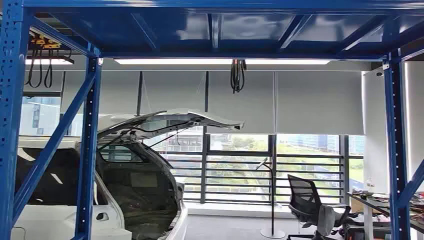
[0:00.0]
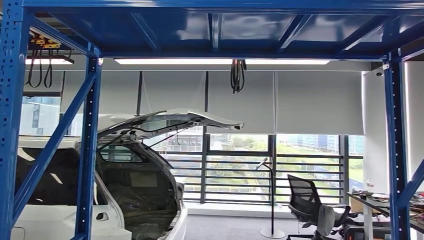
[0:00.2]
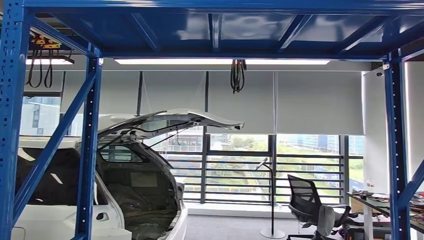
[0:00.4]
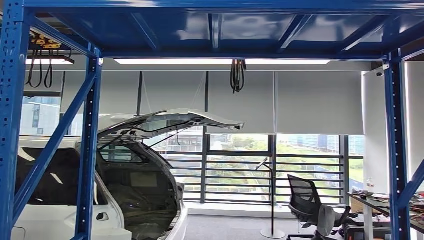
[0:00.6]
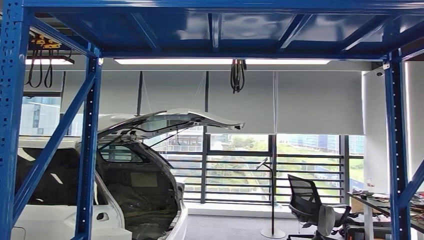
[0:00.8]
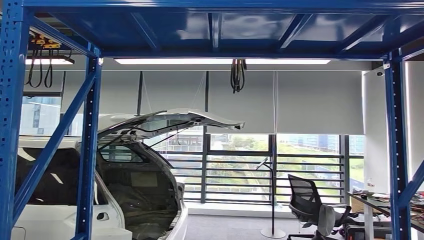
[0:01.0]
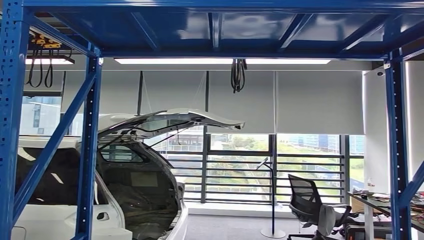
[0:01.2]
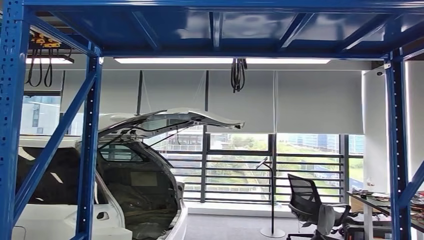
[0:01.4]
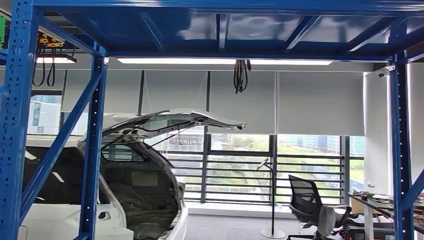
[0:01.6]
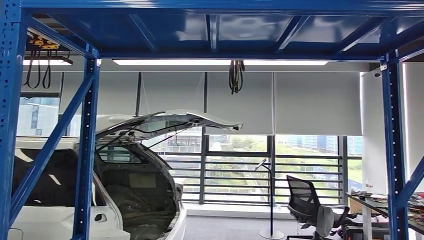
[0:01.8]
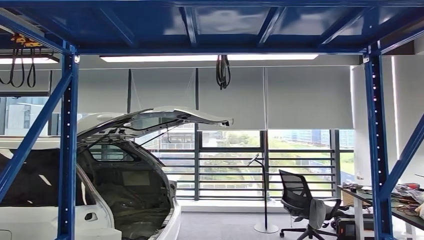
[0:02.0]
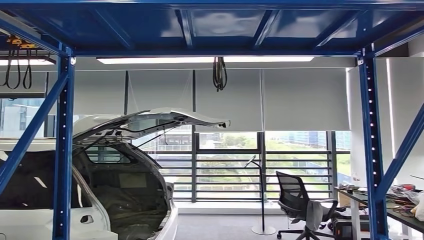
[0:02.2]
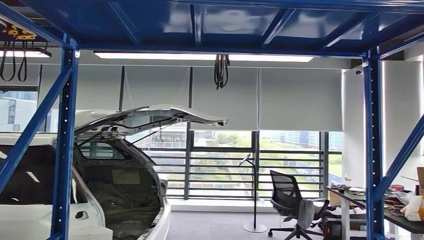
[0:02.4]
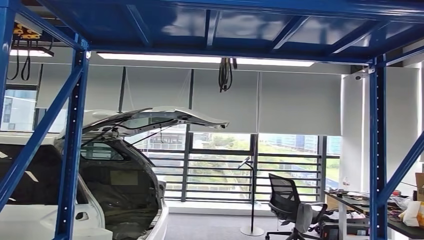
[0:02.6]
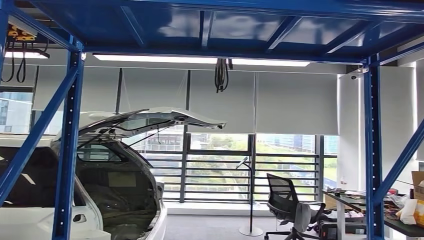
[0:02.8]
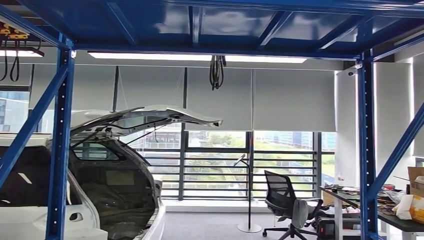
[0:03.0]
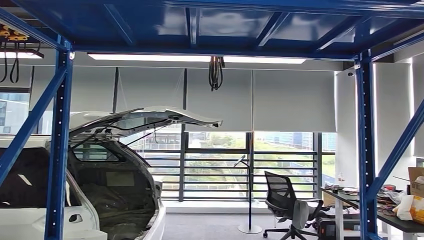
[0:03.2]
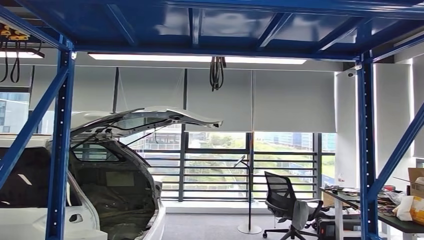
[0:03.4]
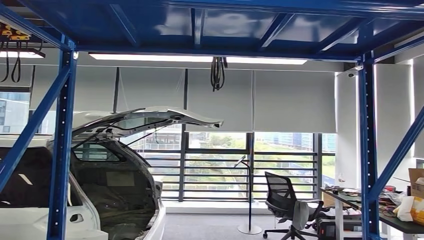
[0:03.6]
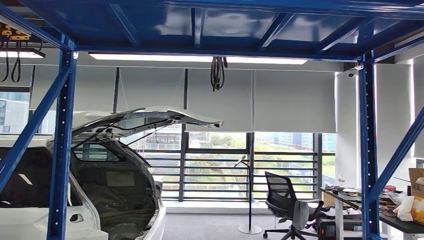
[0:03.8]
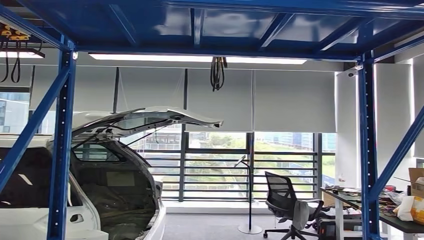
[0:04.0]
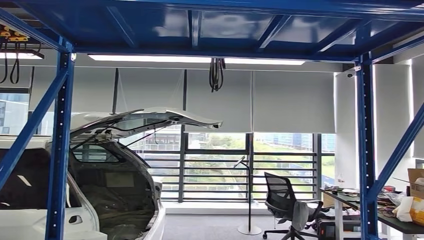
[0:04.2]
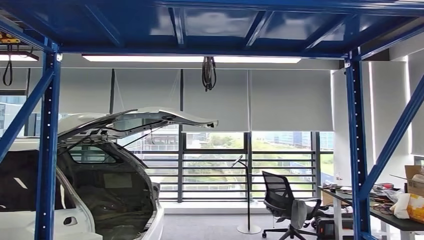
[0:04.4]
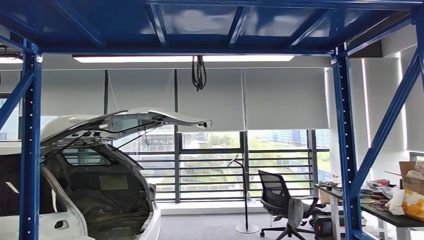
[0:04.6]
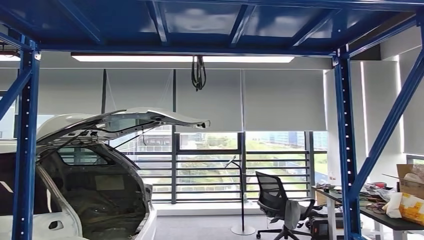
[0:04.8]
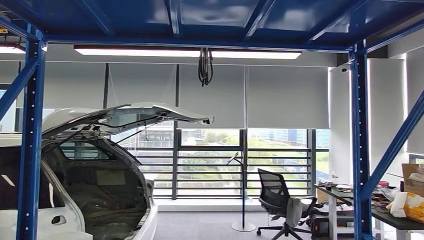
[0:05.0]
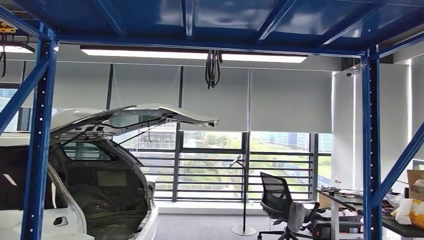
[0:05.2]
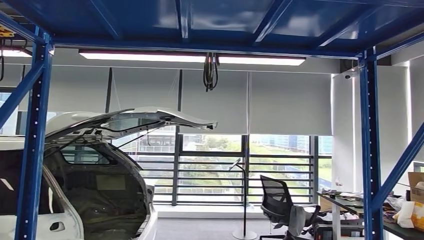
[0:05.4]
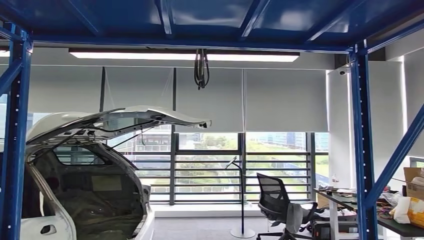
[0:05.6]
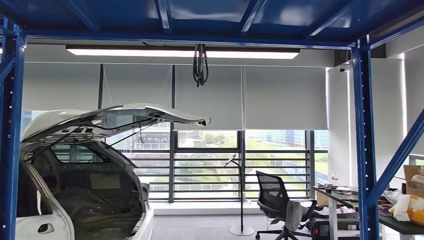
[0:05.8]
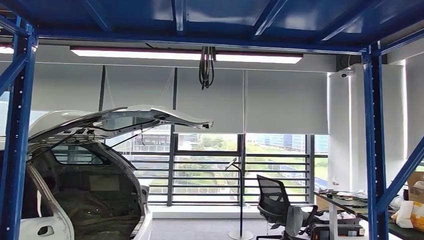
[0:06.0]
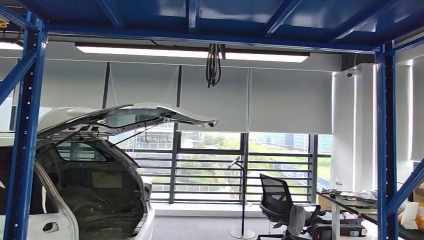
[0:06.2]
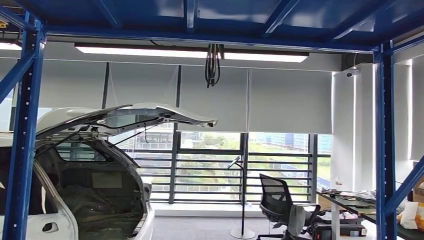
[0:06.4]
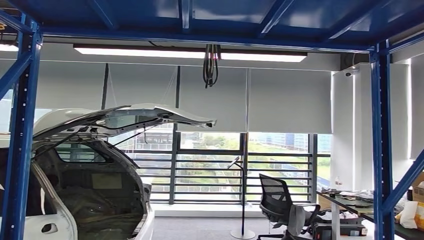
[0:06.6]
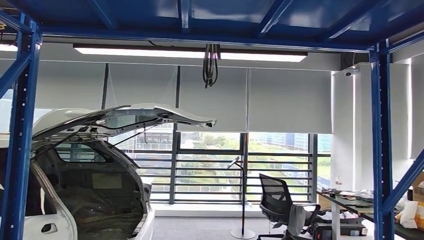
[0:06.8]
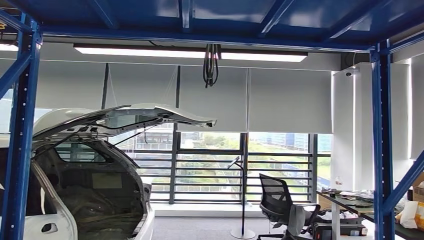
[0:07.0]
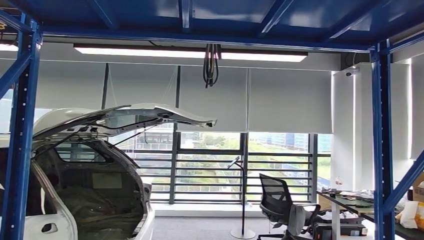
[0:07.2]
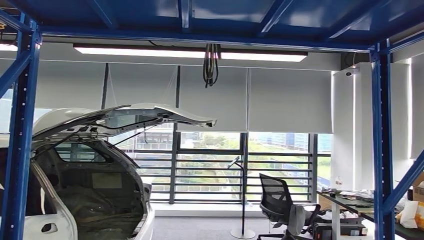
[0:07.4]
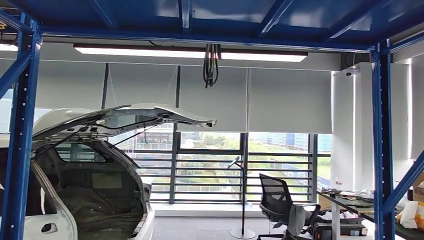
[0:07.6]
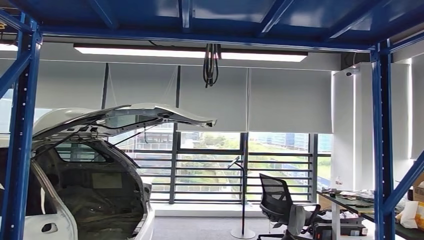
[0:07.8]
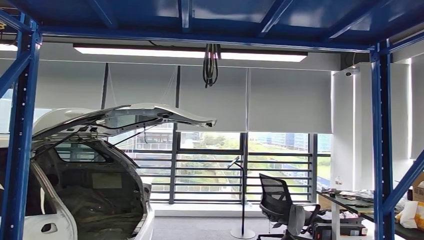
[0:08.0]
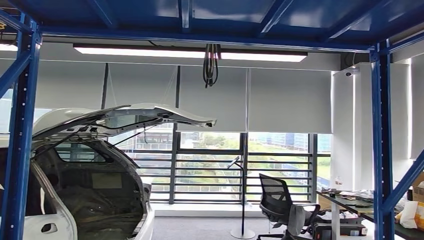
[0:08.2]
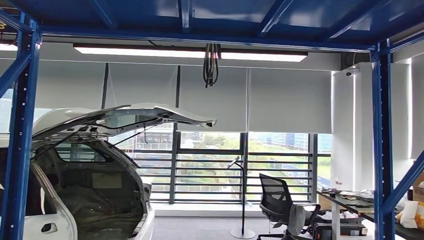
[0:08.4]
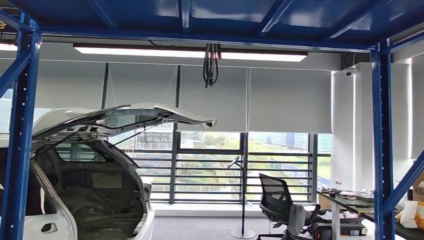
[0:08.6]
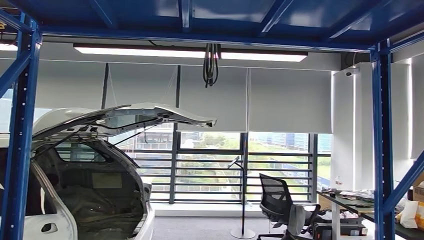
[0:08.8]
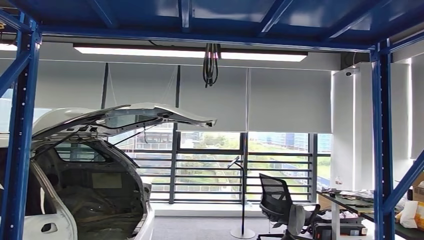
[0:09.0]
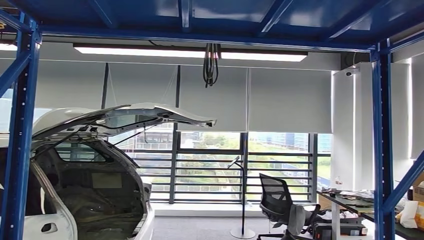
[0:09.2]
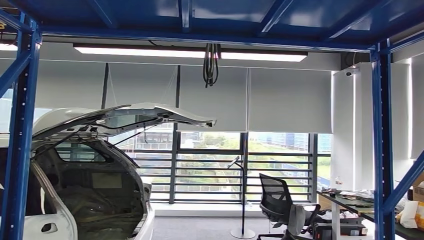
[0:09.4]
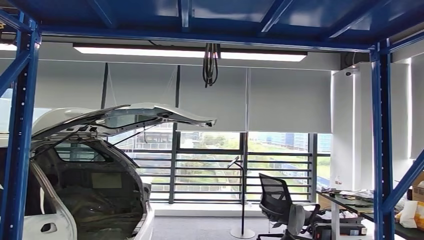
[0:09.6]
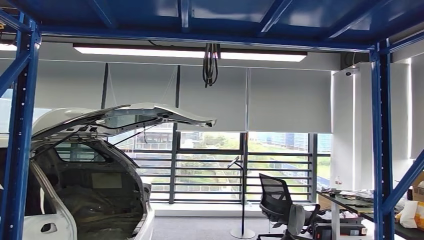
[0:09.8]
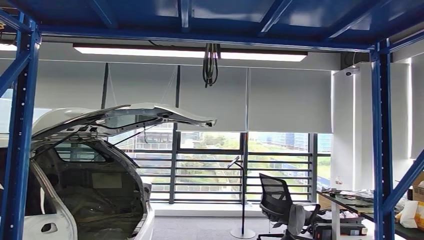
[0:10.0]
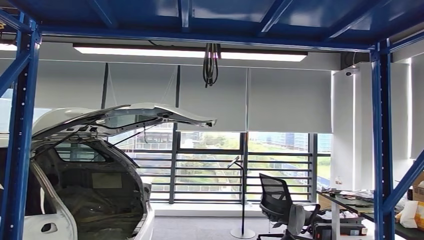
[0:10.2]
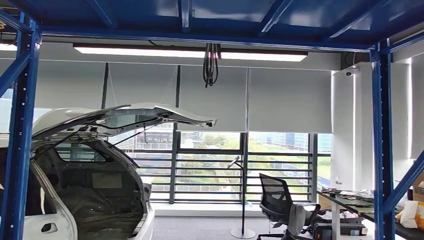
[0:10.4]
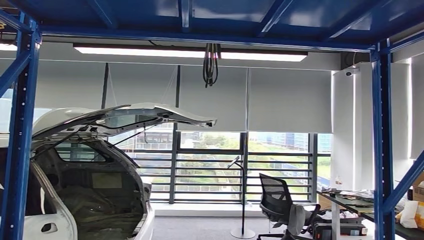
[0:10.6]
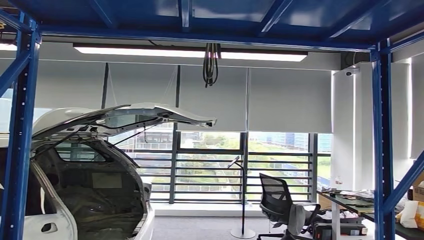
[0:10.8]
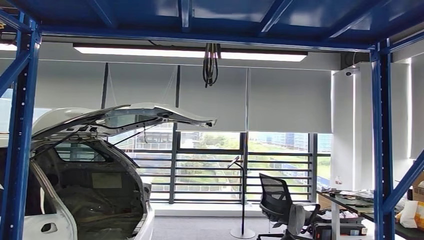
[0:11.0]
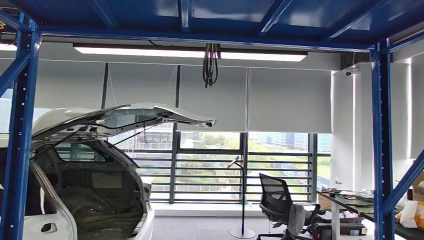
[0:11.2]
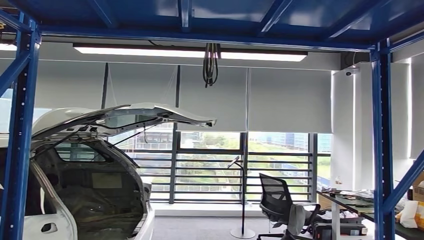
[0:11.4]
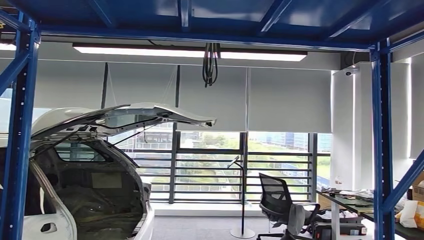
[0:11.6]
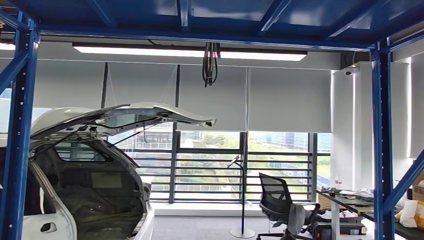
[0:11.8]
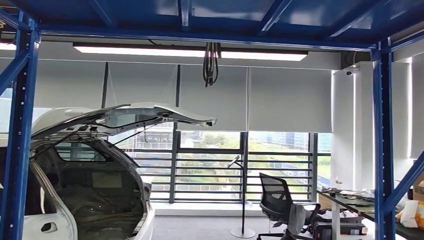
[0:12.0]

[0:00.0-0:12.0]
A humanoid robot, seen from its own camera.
Step, 0:00.0 to 0:11.0: Pick up the small component from the shelf.
0:10.4 to 0:12.0: The right hand heads upward, covering some 10 cm.

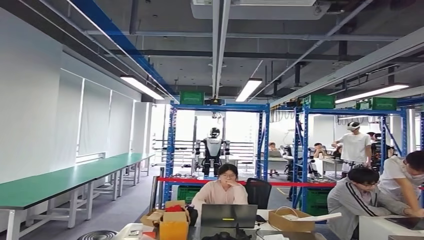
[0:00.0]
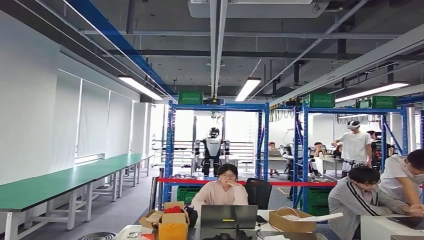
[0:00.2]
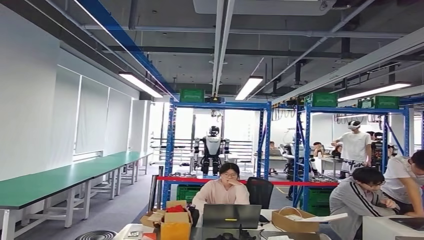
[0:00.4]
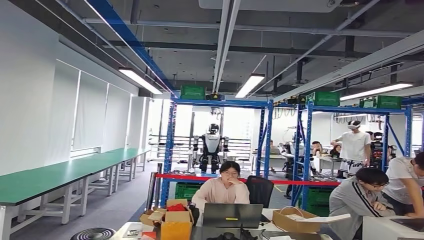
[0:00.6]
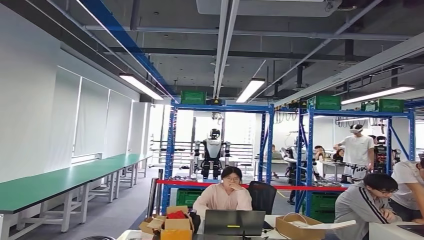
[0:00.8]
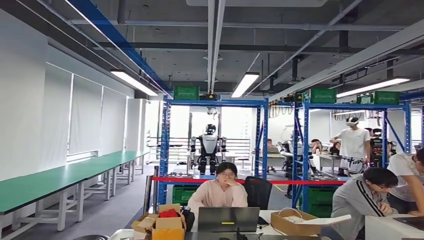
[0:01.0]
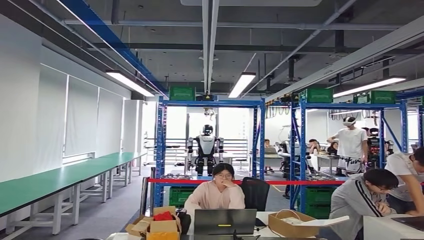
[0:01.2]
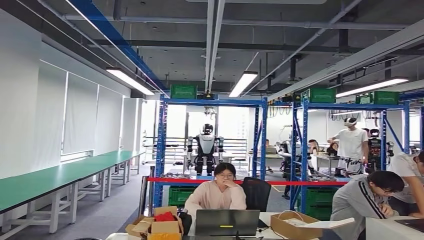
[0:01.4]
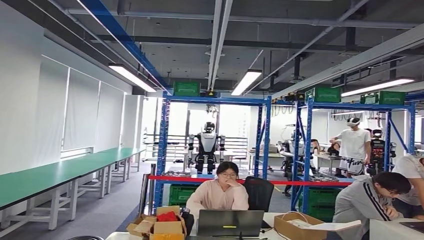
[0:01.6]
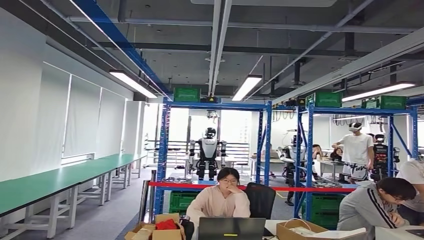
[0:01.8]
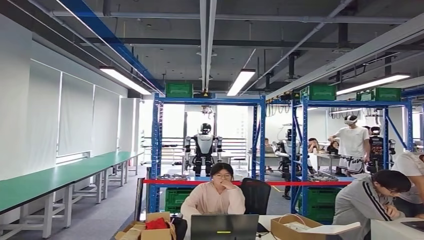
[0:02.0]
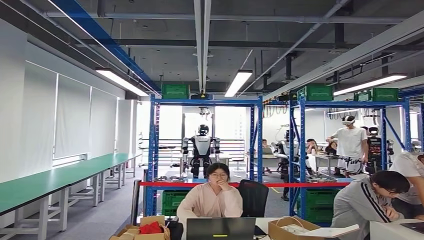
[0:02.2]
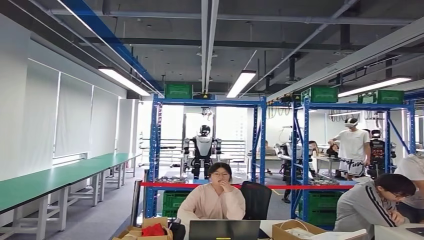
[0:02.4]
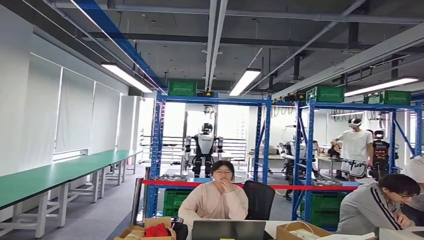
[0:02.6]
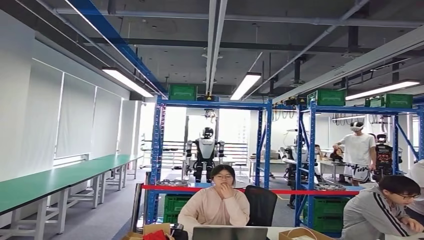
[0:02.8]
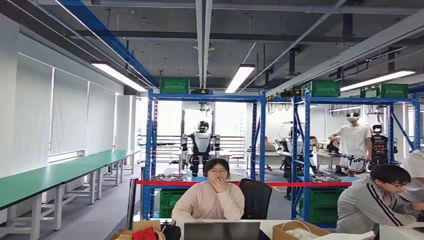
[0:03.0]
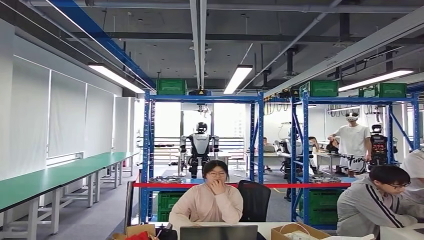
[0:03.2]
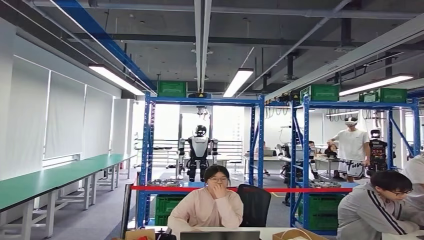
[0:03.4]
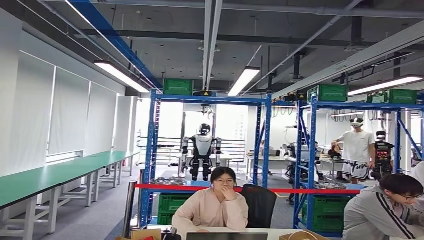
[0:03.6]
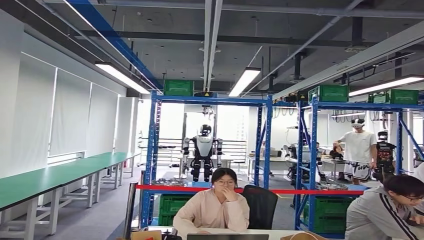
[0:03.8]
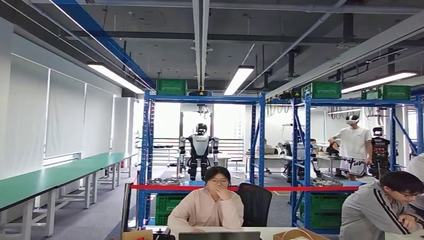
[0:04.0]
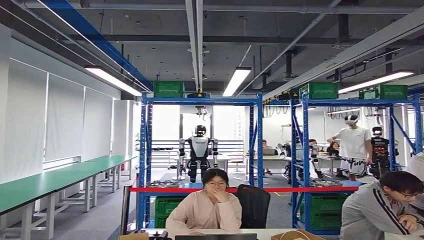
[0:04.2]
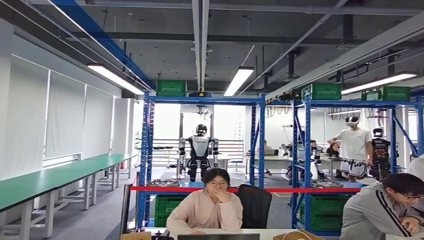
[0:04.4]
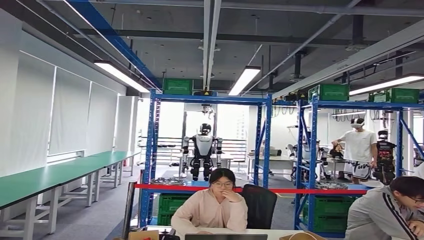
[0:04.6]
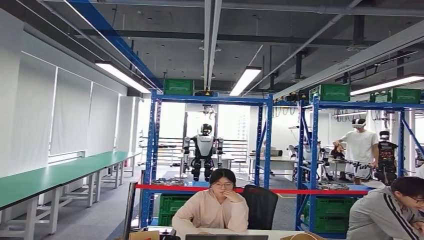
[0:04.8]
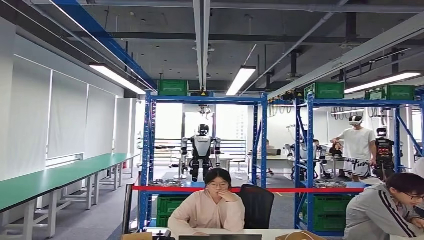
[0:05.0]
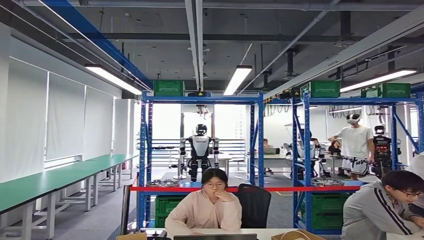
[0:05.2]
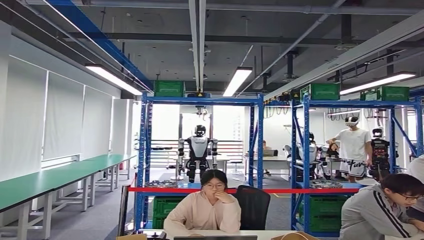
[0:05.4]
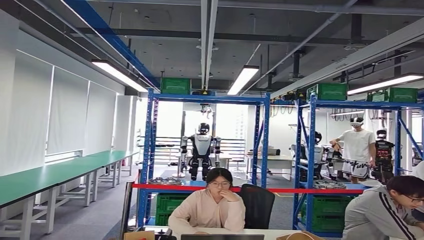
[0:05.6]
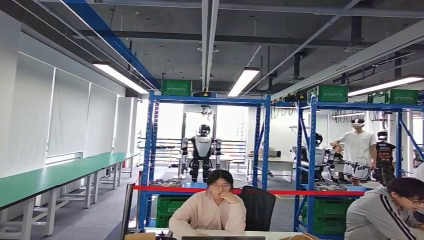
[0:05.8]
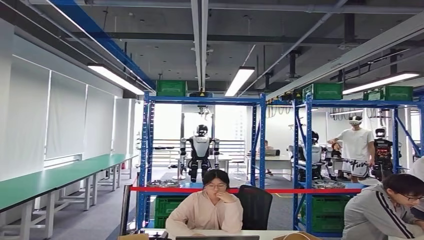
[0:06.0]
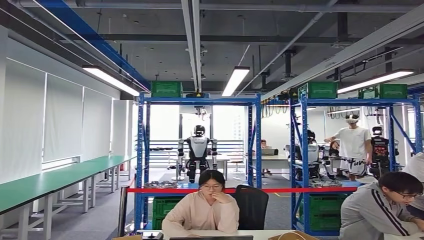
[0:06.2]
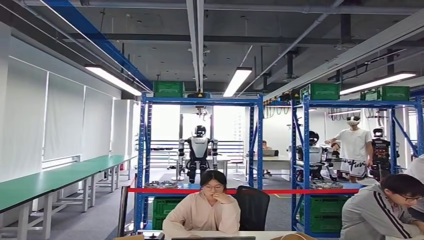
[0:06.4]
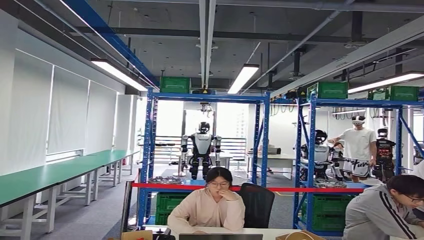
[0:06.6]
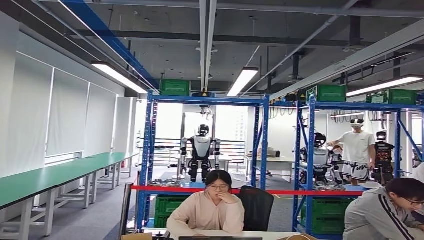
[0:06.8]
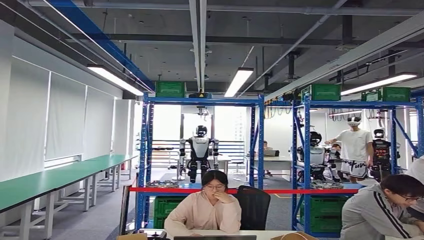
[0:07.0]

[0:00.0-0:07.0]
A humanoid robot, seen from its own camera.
Step, 0:00.0 to 0:04.6: Bring the small component to the front of the workbench.
Step, 0:05.0 to 0:06.4: Insert the small component into the corresponding slot on the workbench.
